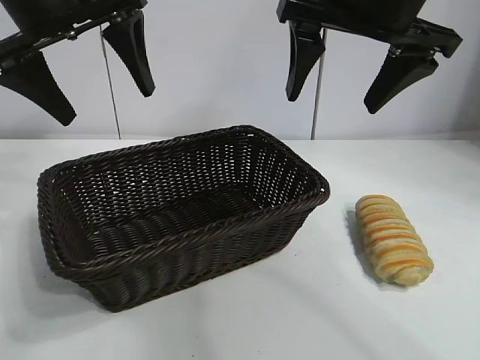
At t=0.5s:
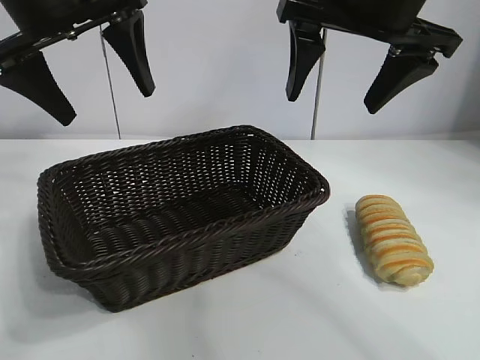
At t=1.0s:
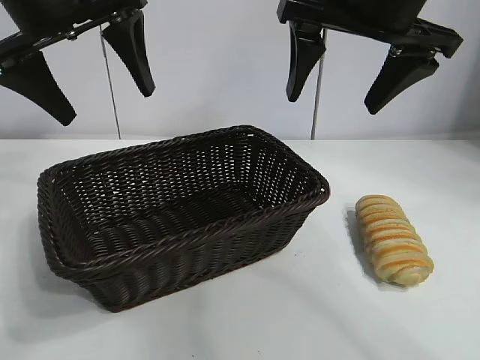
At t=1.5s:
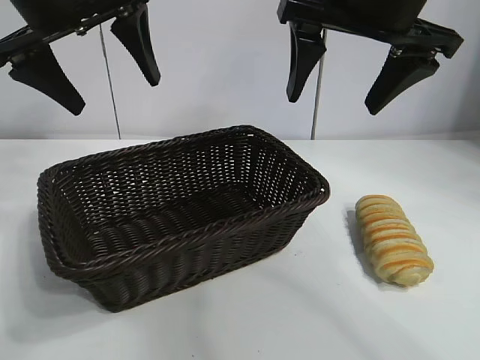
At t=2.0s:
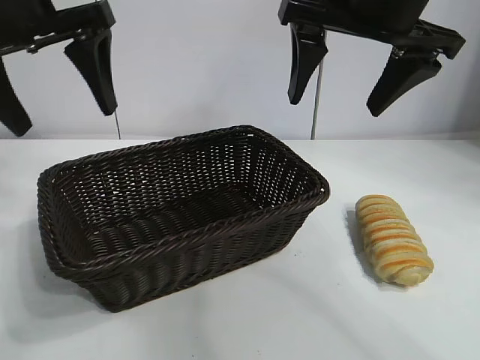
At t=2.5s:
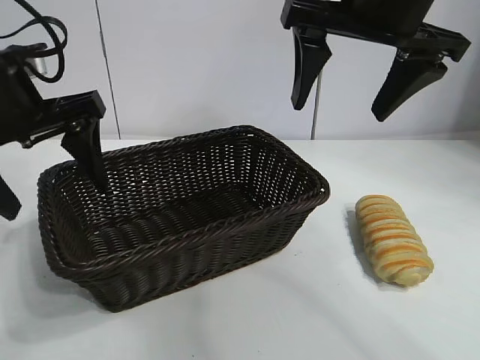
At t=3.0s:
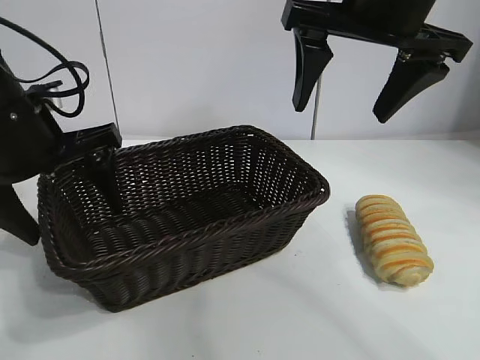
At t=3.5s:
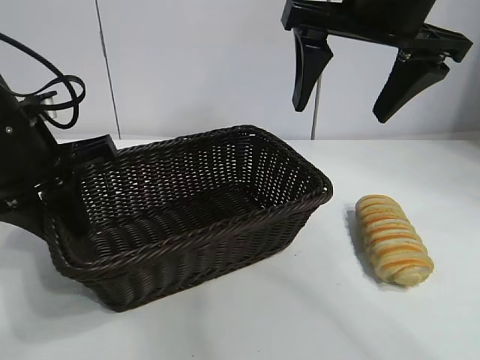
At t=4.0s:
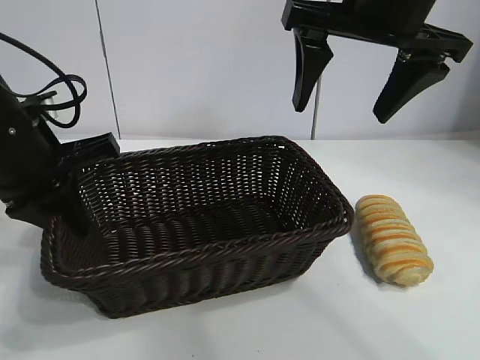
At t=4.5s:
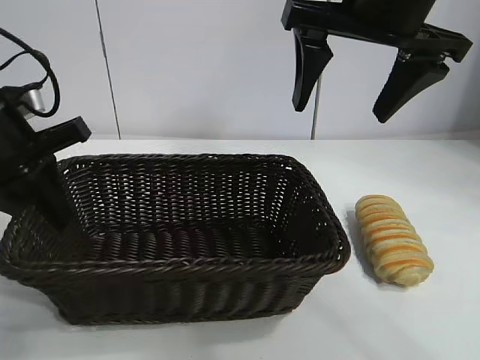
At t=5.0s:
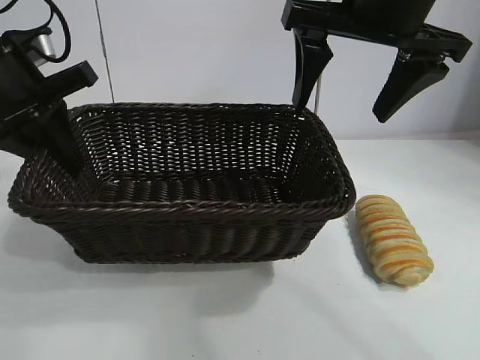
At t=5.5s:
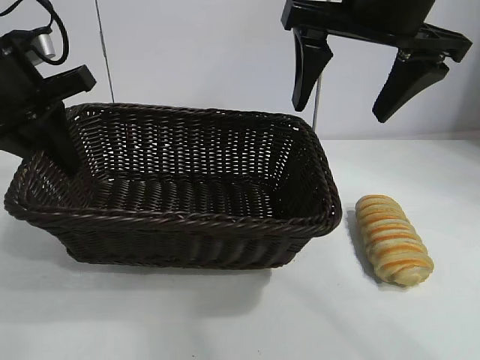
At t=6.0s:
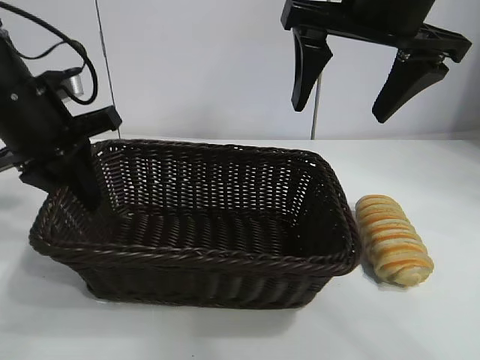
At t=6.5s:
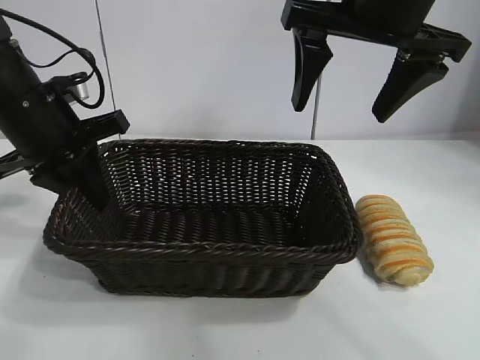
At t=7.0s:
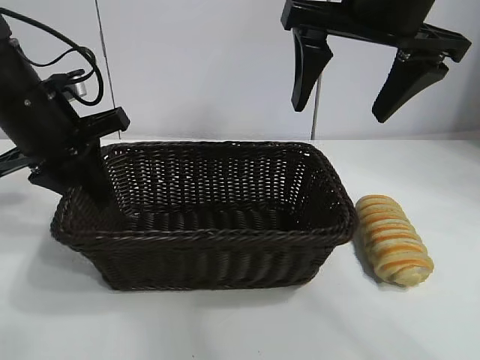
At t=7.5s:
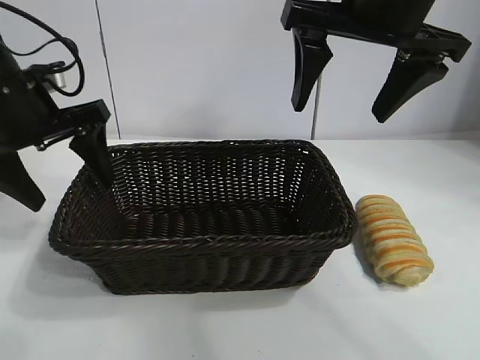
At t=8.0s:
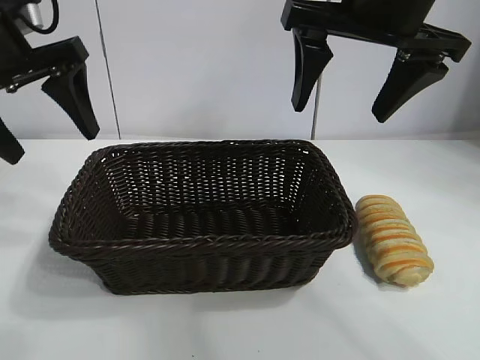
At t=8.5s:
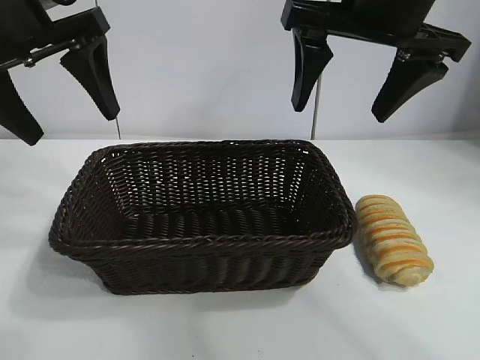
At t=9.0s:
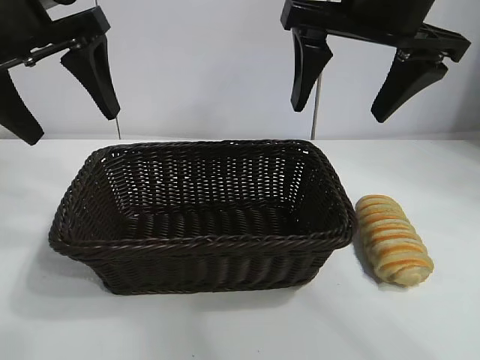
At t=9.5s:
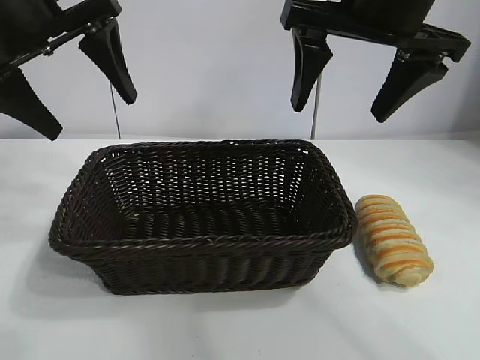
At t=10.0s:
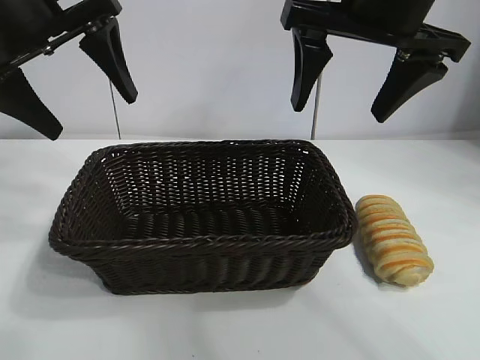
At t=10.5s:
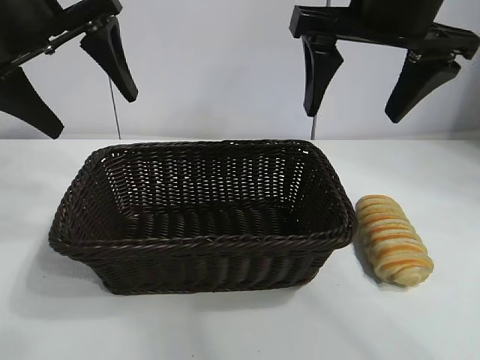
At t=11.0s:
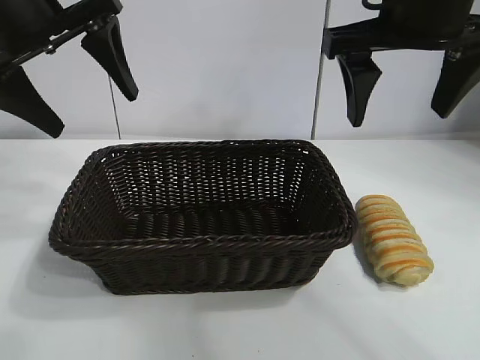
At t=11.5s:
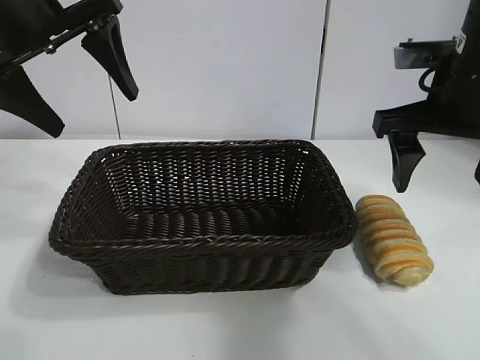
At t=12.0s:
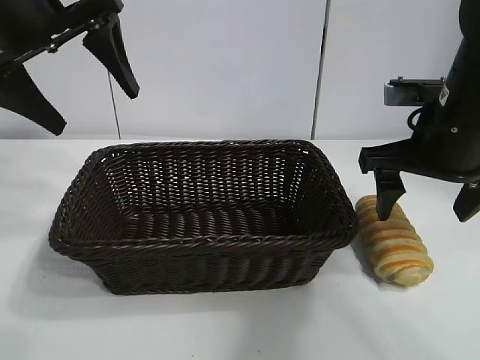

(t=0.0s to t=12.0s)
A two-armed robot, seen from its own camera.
Task of the whole recording: pick up the long bread and put it into the basket.
Step, t=1.0s - t=3.5s: Grasp the basket with the left gripper.
Step, t=4.0s - t=7.0s: Place the basket in the center of the table with the left gripper.

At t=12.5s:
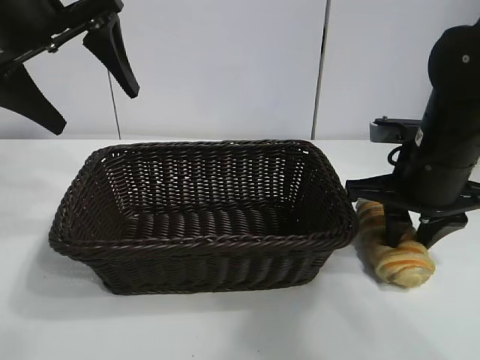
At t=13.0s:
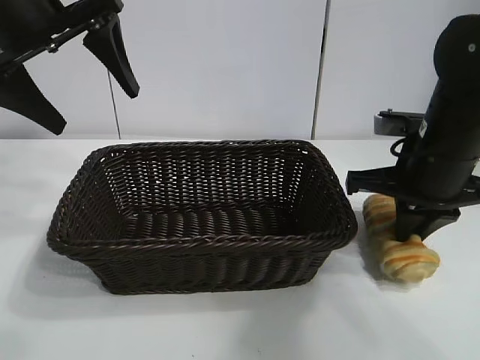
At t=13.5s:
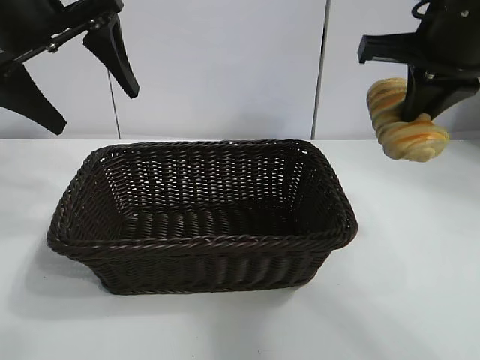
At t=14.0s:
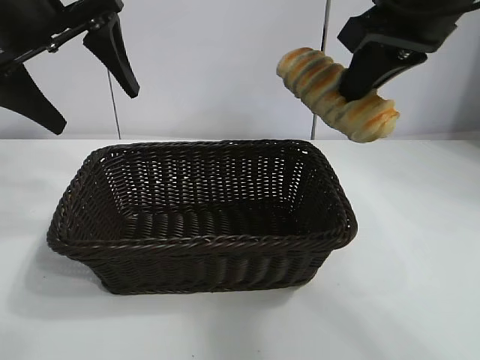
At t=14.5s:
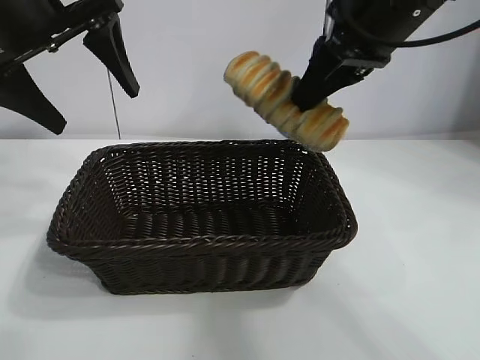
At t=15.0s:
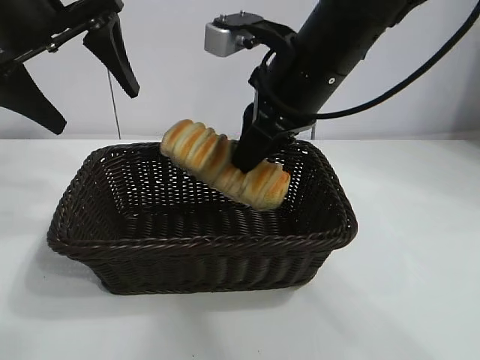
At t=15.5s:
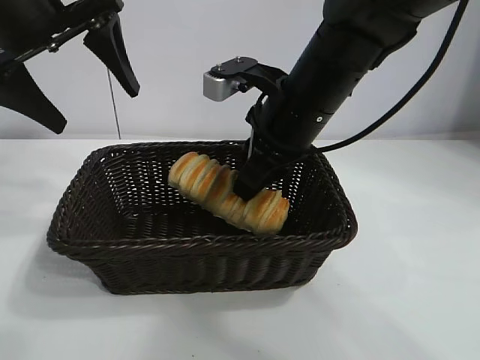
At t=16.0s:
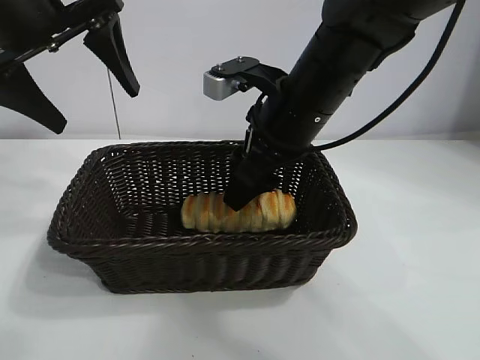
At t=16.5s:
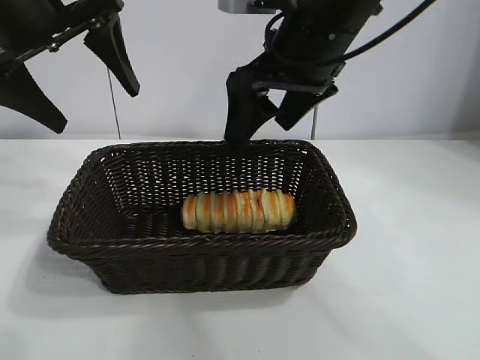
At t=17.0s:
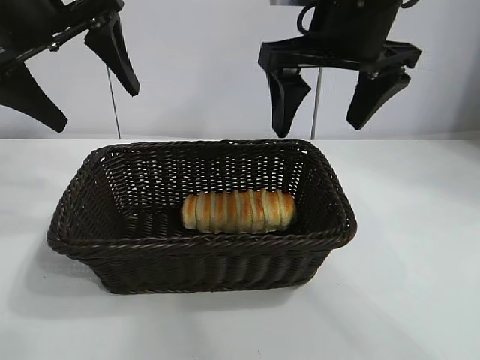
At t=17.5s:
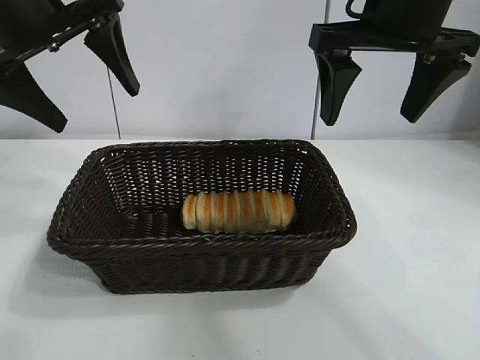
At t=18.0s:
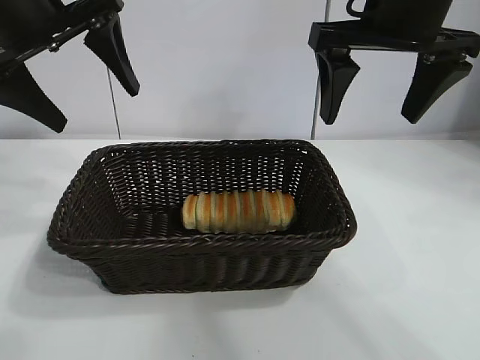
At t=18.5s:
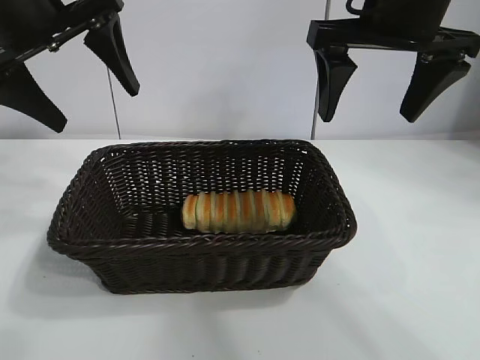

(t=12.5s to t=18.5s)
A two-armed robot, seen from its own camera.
Task of the whole recording: pick up the long bread and put it into the basket.
Step, t=13.0s - t=16.0s: Place the long bread in the basket with right gripper.
